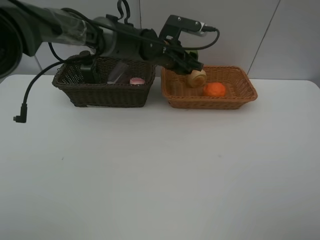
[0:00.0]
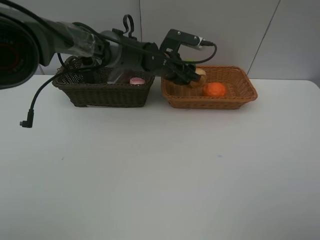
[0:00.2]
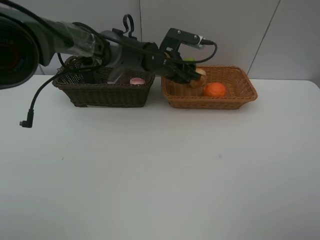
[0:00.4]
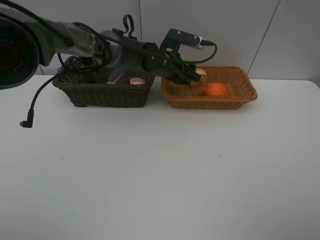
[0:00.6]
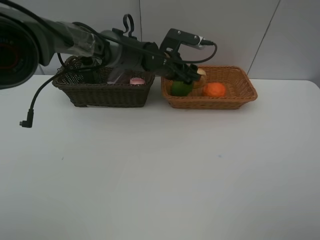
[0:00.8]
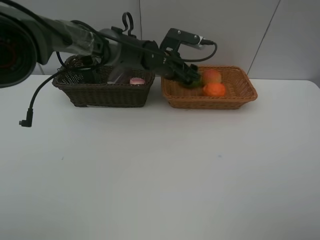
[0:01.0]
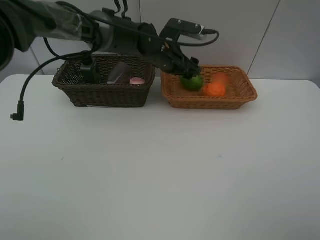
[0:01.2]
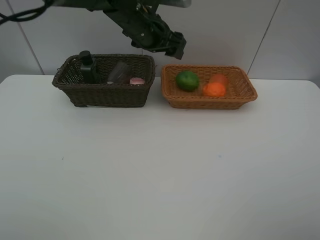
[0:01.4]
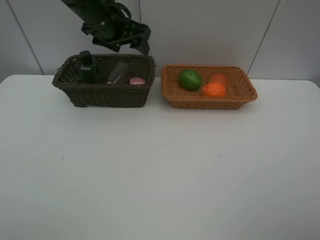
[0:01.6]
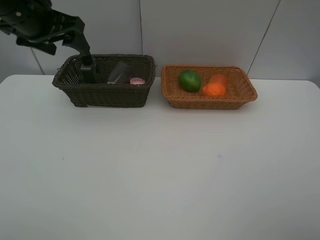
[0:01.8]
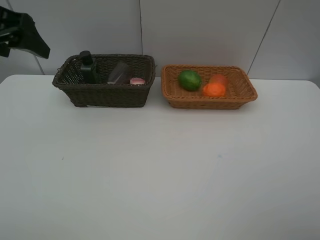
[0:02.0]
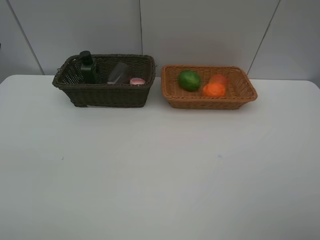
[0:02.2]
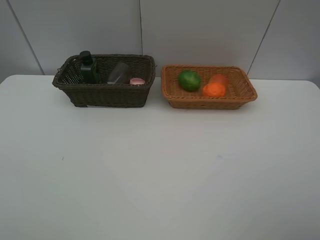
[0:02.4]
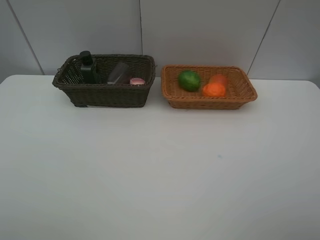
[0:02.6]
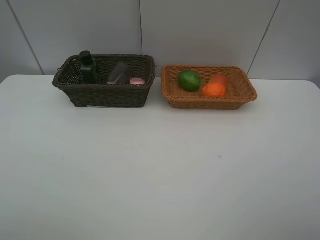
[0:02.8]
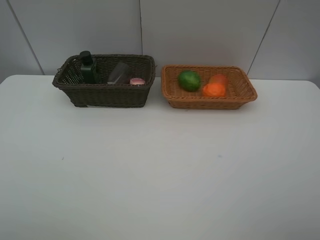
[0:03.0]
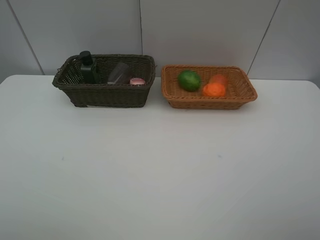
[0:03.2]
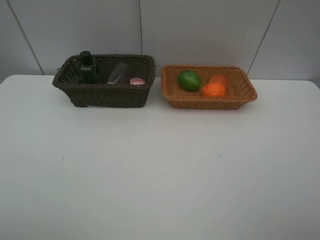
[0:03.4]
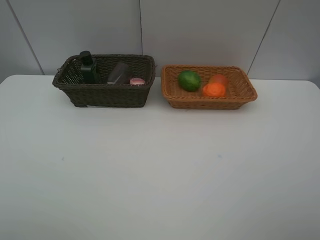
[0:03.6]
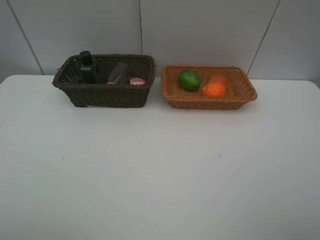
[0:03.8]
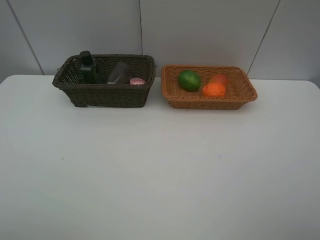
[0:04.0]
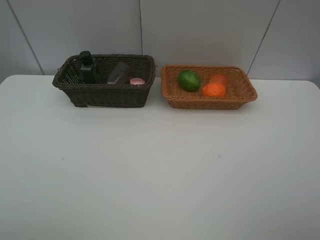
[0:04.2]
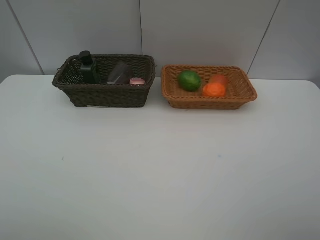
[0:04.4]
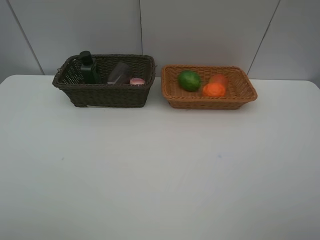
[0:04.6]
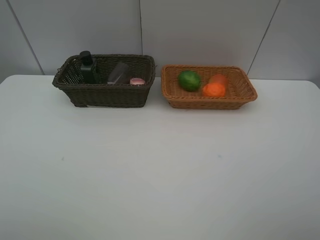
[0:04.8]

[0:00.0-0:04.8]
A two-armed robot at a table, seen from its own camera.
Task of the whole recording: place multiple objects separately in different baskets.
0:00.0 to 0:01.6: The left gripper shifts approximately 20 cm to the left and upward.
0:01.6 to 0:03.2: The left gripper shifts approximately 40 cm backward and to the left.
0:03.2 to 0:04.8: Neither gripper changes place.

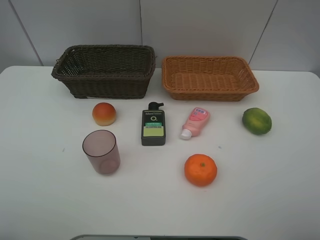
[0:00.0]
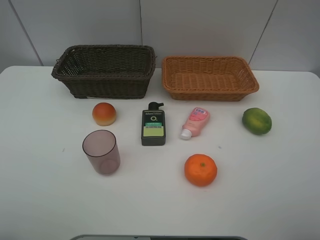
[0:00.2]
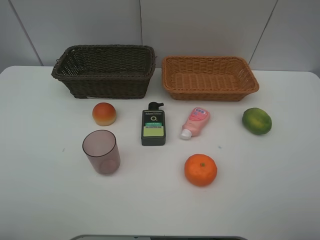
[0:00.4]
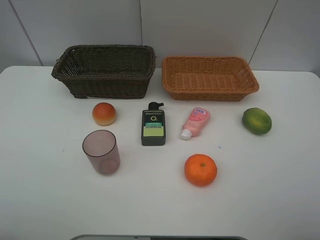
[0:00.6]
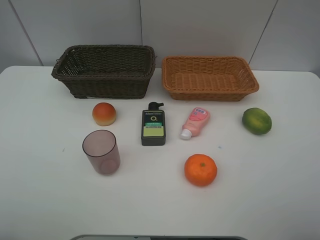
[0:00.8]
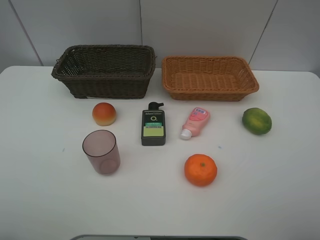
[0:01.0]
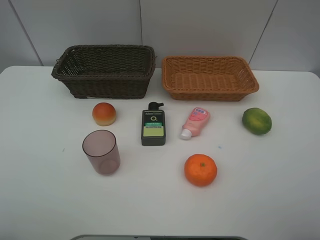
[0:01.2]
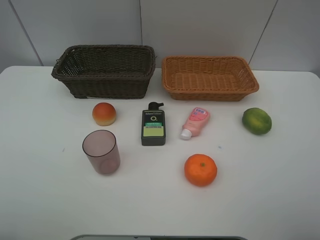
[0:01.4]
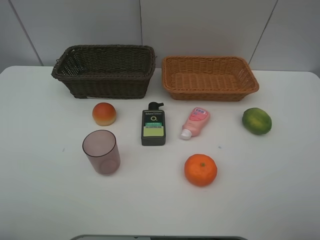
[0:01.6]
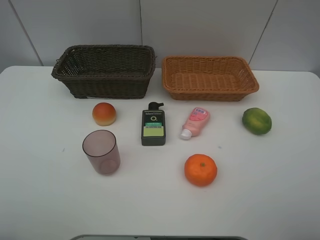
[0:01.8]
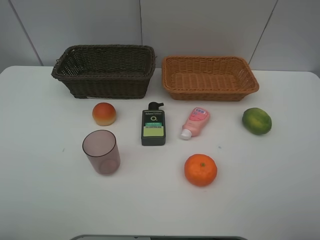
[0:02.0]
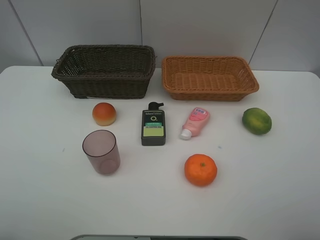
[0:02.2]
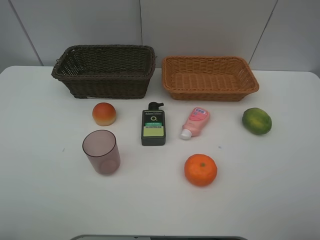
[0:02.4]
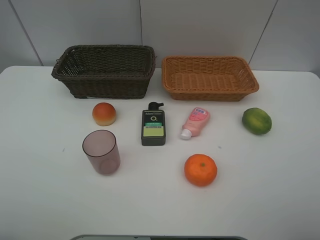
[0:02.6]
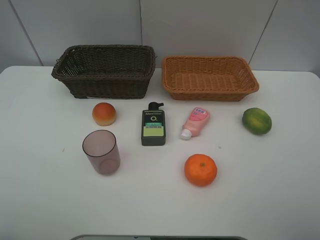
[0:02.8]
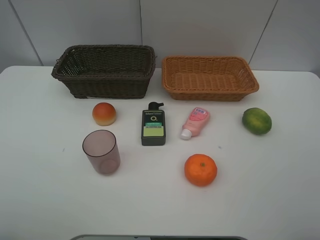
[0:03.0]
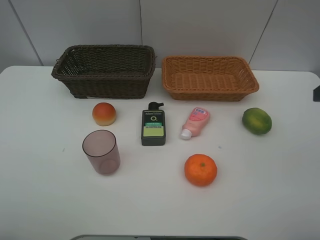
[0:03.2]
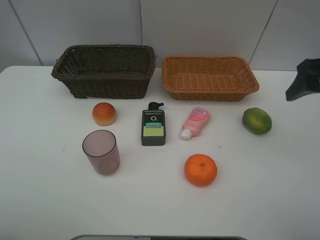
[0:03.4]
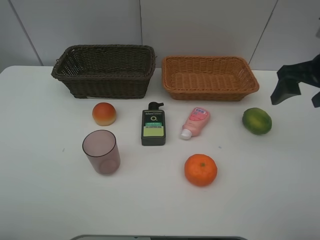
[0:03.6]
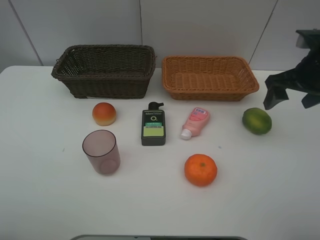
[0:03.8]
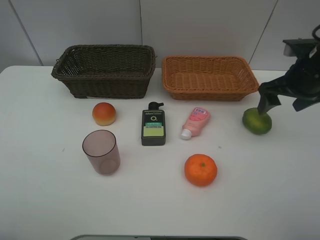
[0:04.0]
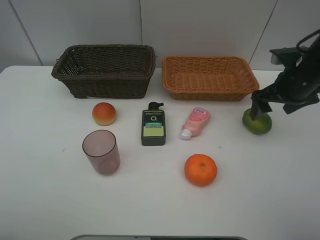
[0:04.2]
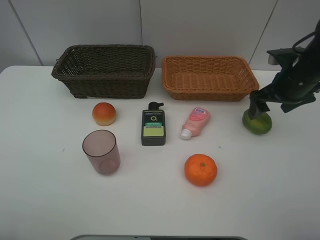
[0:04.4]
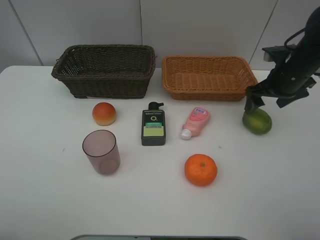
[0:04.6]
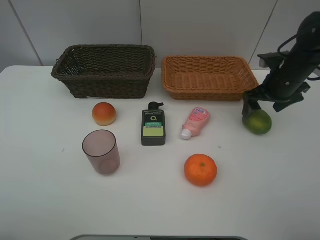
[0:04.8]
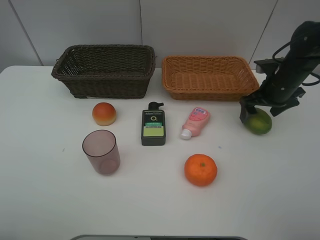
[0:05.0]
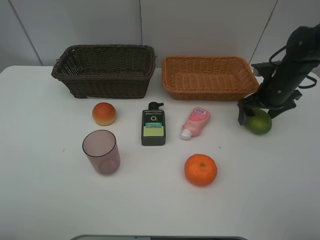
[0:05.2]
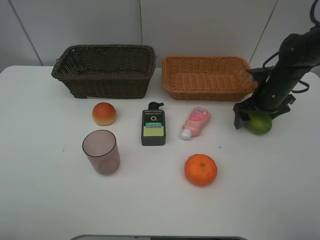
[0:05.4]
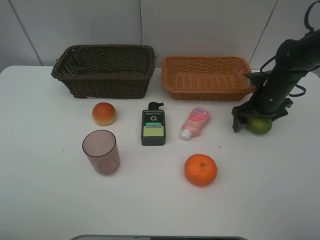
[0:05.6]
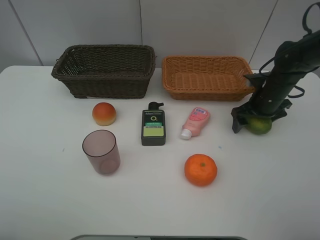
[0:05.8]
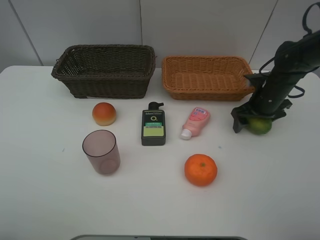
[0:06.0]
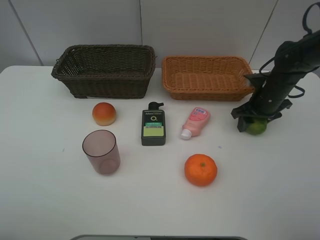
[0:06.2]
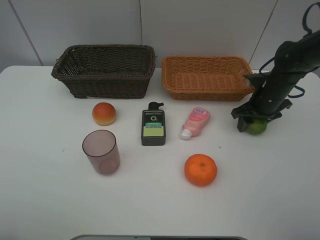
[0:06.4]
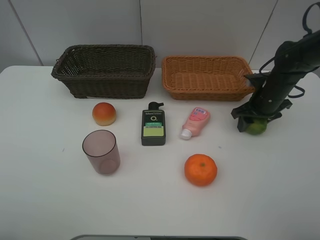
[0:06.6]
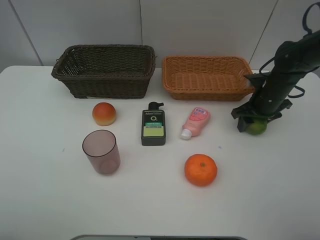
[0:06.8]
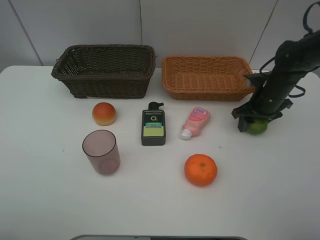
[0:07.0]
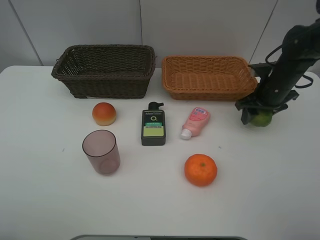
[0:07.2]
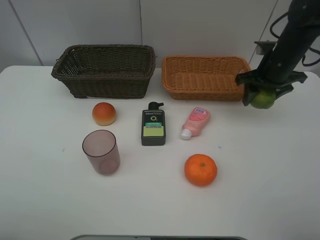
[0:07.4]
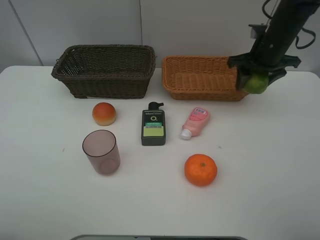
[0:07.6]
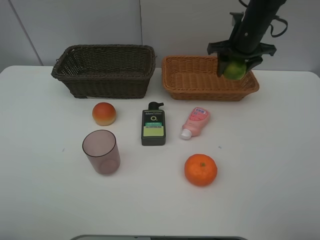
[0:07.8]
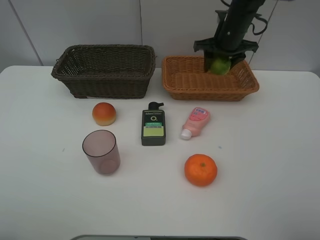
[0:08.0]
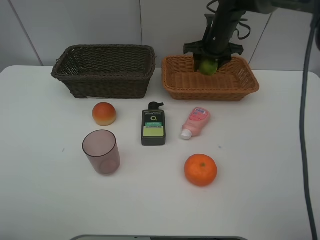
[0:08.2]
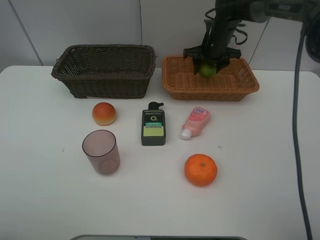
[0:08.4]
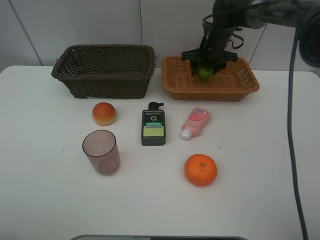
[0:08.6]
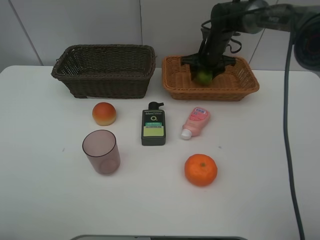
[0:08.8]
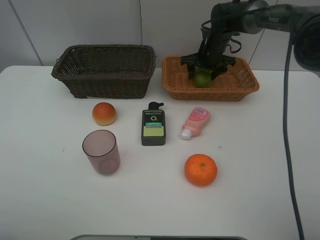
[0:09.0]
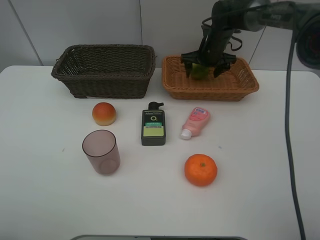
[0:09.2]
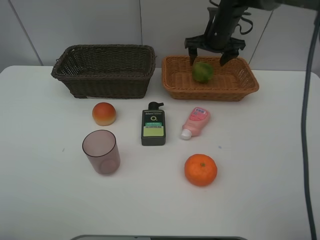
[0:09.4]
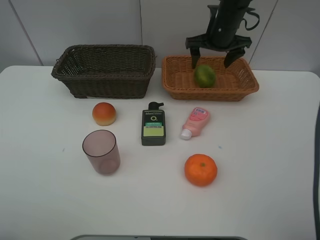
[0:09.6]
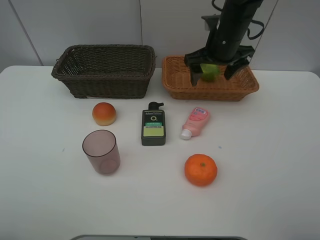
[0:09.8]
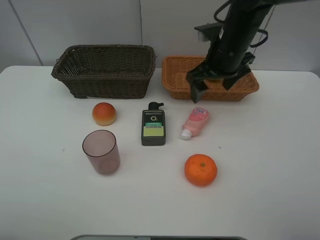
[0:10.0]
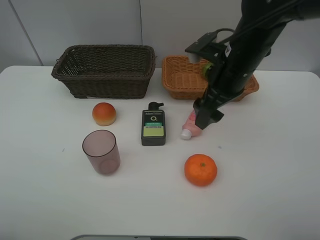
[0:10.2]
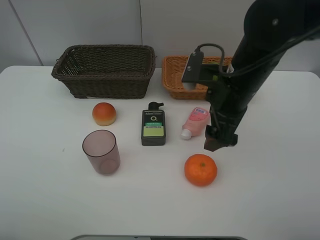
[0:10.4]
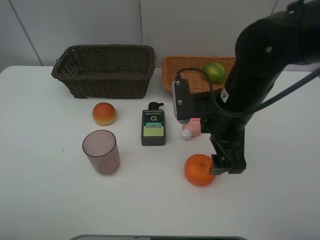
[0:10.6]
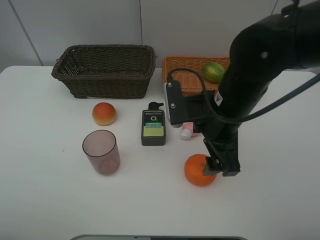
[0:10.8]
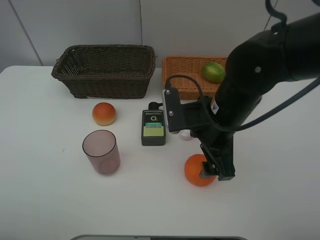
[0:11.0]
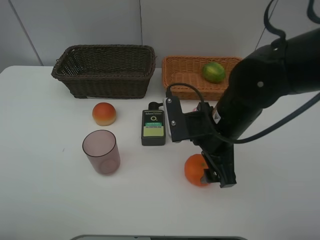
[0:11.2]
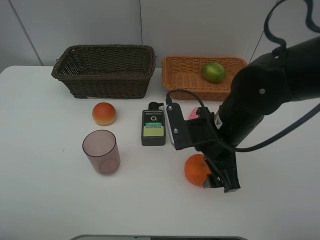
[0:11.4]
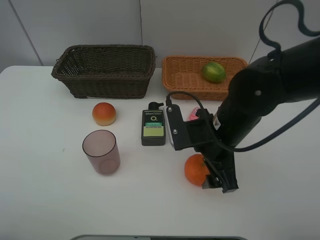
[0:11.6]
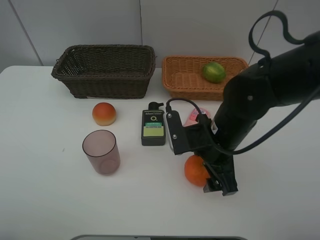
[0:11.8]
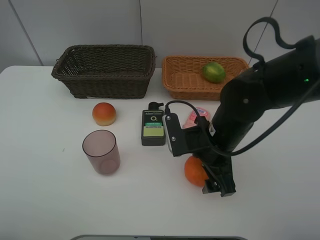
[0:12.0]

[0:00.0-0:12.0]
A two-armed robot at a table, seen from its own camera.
Task of the whole recording: place multiple objects separately in different baskets.
0:00.0 to 0:01.6: Both grippers stay about where they are.
0:03.0 to 0:04.4: The right gripper shifts roughly 25 cm forward and downward.
0:04.4 to 0:06.0: The right gripper goes about 10 cm downward.
0:06.0 to 0:07.6: The right gripper heads upward, covering approximately 10 cm.
0:07.6 to 0:09.0: The right gripper goes roughly 15 cm forward, to the left and downward.
0:09.0 to 0:10.4: The right gripper moves backward, approximately 25 cm.
0:10.4 to 0:12.0: The right gripper is displaced downward by some 10 cm.

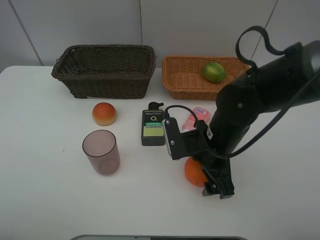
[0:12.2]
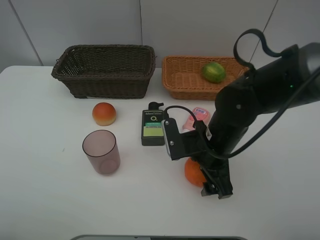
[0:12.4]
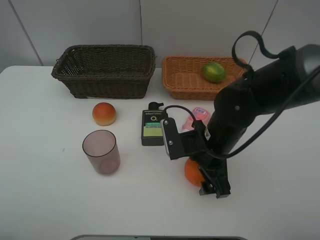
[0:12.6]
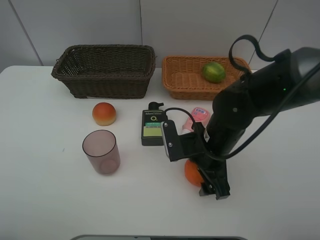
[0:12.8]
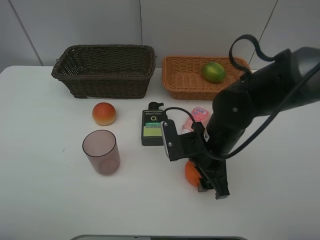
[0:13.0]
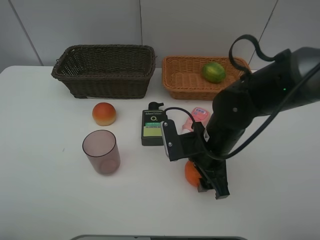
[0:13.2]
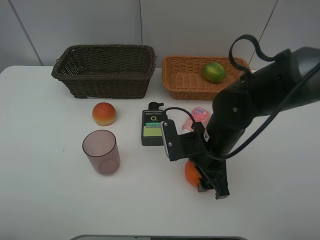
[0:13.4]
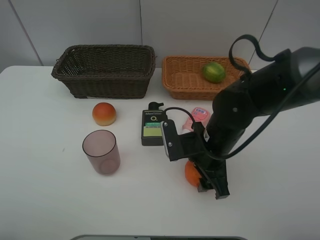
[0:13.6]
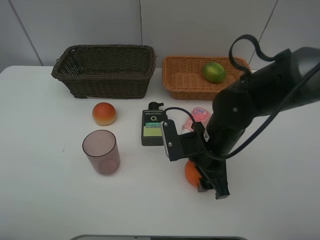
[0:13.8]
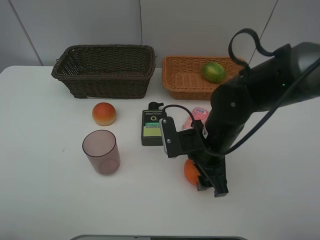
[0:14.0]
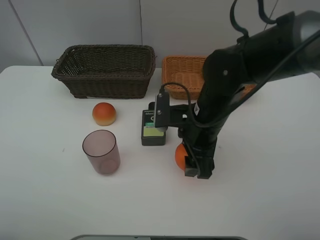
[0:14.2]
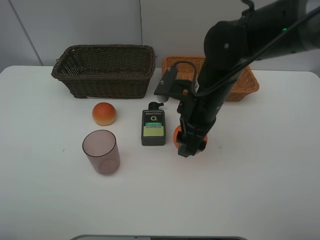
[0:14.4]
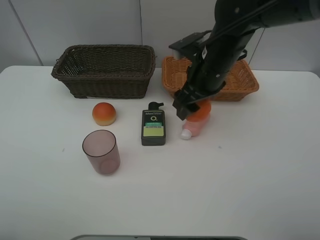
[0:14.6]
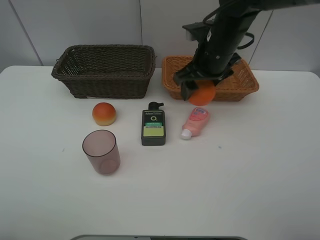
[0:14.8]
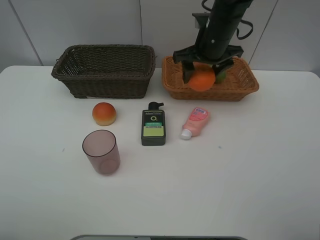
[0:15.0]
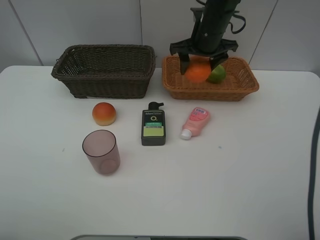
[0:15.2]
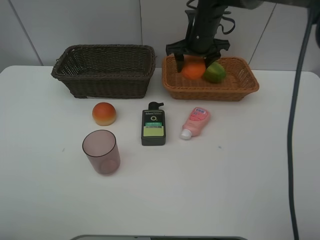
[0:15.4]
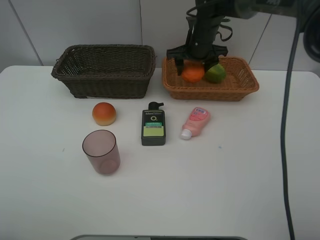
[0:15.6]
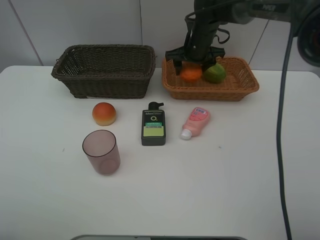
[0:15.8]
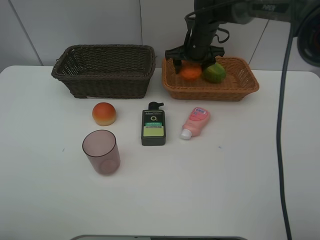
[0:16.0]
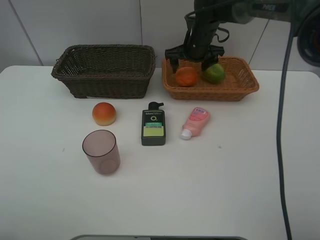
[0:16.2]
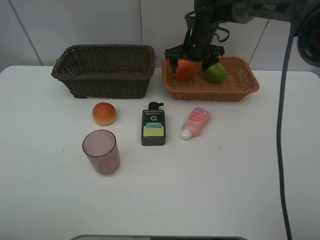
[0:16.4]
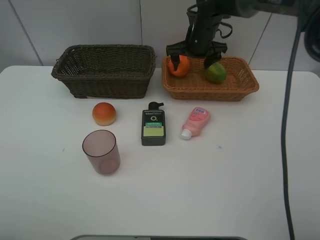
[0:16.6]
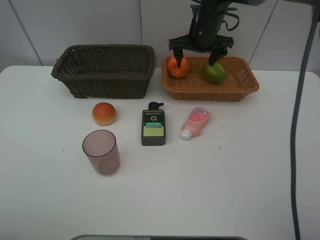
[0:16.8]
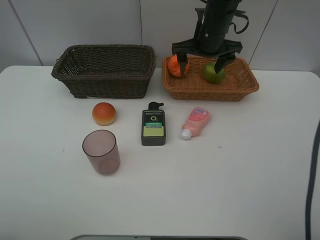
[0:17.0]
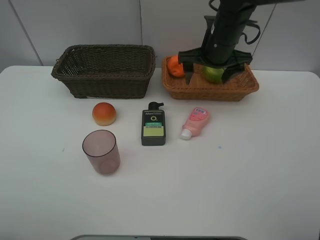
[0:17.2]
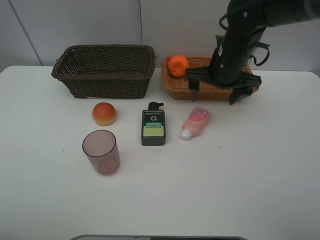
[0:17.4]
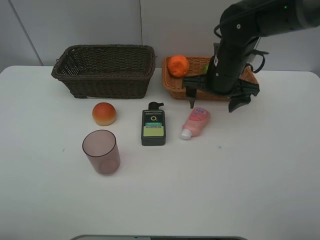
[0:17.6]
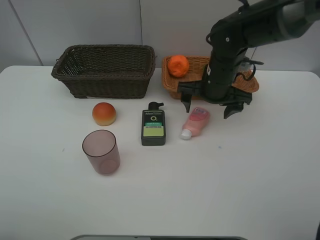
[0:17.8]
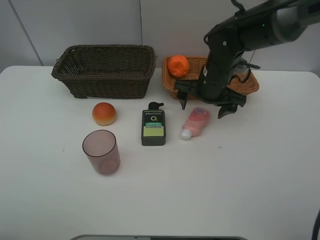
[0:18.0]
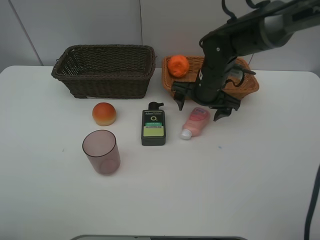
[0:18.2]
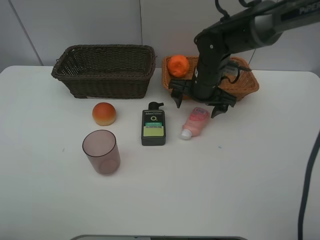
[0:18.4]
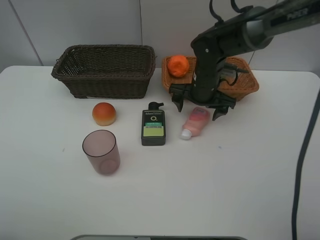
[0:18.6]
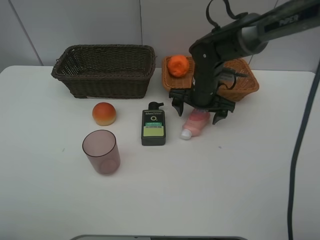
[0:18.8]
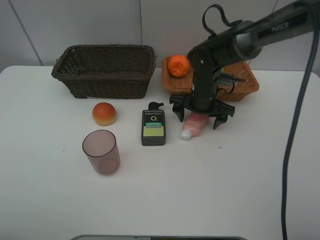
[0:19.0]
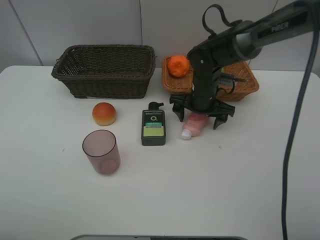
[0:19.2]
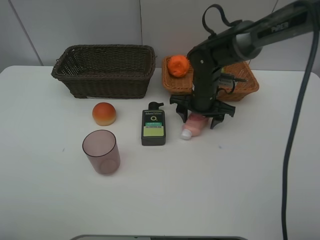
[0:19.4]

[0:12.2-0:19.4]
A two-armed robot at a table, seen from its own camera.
Task of the whole recording: place multiple objects separately in different baskets.
0:12.2 to 0:13.6: The two grippers keep their place.
0:13.6 to 0:15.0: The right gripper moves forward and upward, roughly 20 cm.
0:15.0 to 0:16.6: The right gripper shifts about 5 cm forward.
0:16.6 to 0:18.0: The right gripper heads backward, covering some 15 cm.
0:18.0 to 0:19.4: The right gripper moves downward, roughly 5 cm, and closes up.
